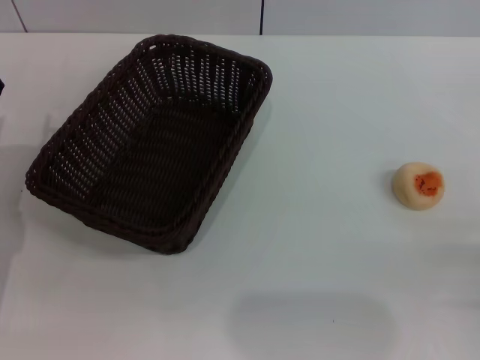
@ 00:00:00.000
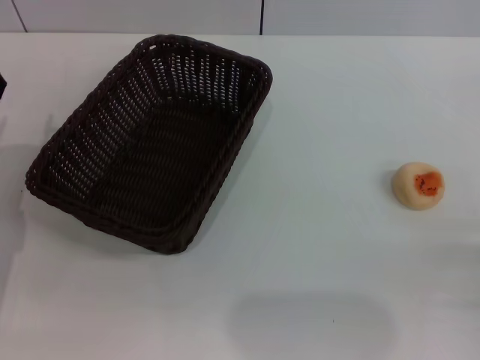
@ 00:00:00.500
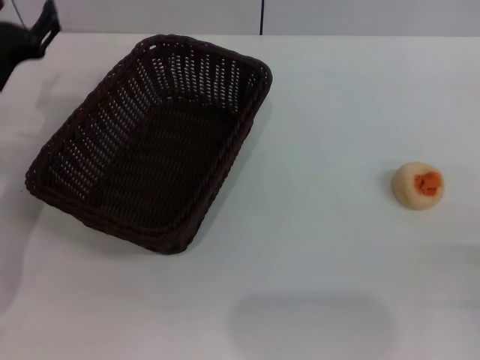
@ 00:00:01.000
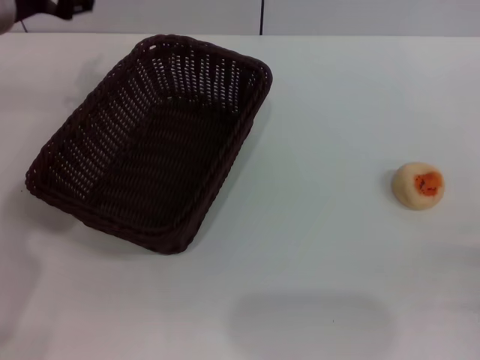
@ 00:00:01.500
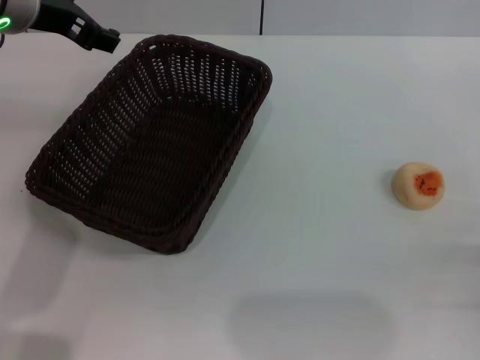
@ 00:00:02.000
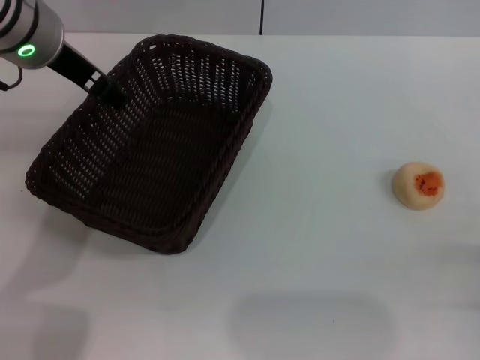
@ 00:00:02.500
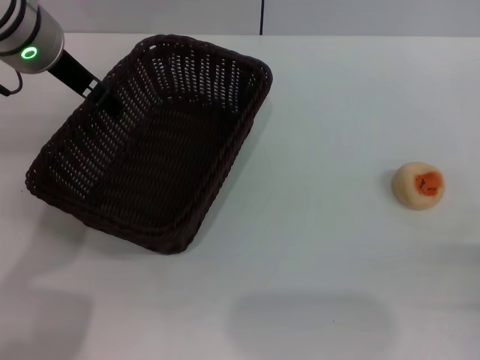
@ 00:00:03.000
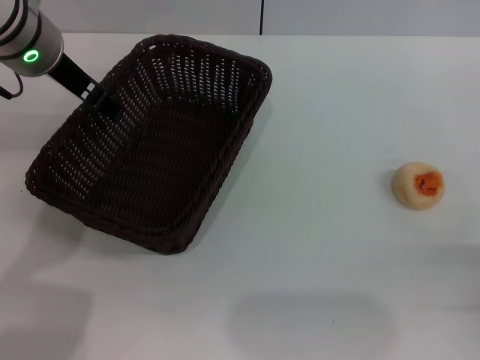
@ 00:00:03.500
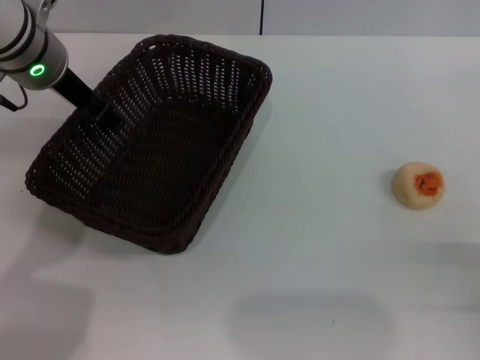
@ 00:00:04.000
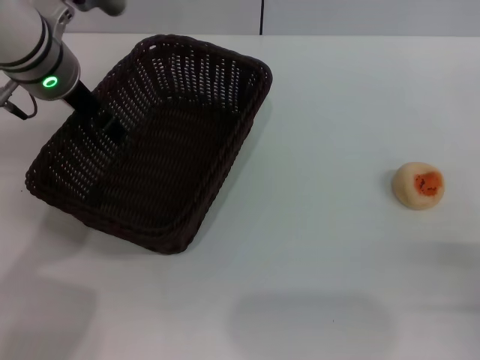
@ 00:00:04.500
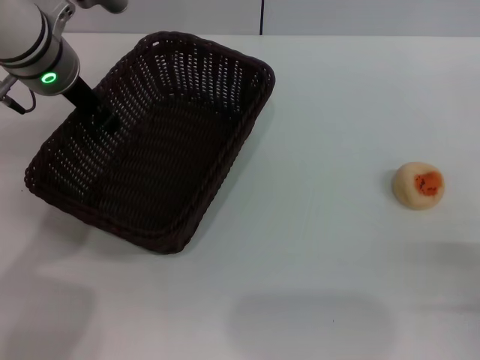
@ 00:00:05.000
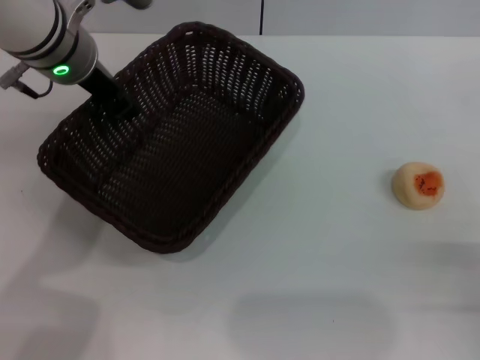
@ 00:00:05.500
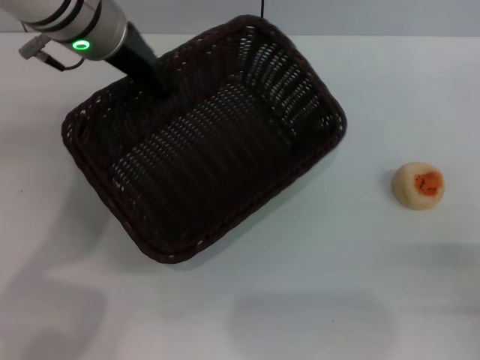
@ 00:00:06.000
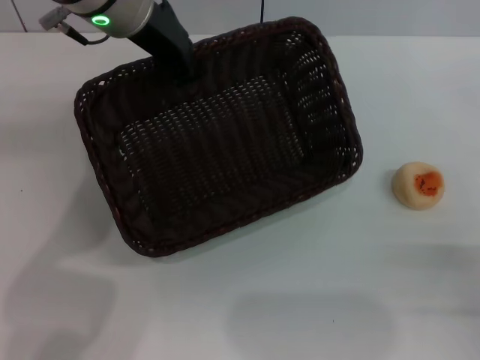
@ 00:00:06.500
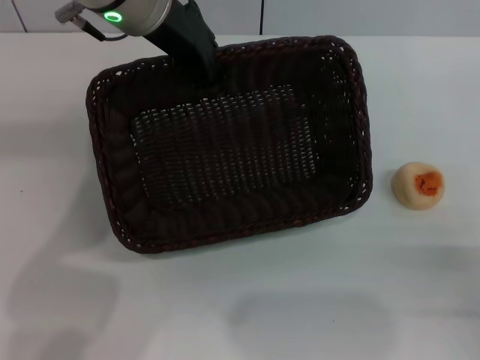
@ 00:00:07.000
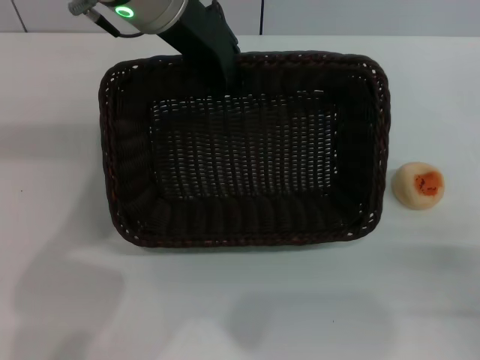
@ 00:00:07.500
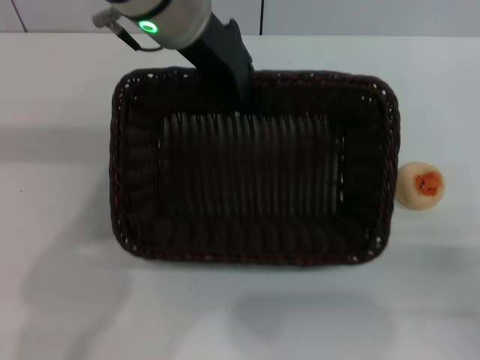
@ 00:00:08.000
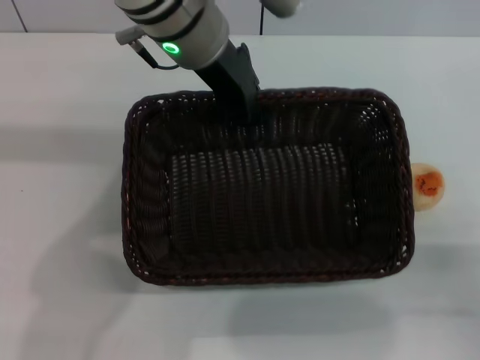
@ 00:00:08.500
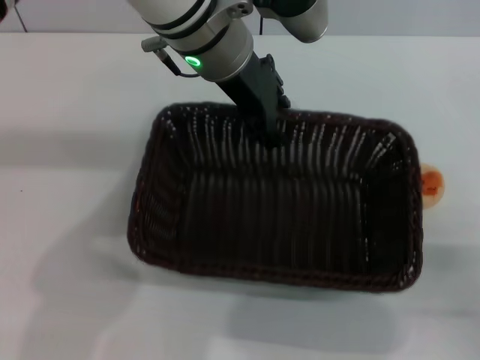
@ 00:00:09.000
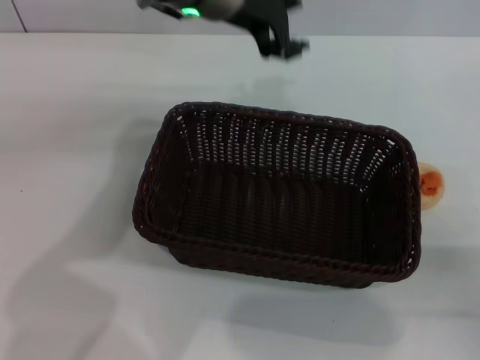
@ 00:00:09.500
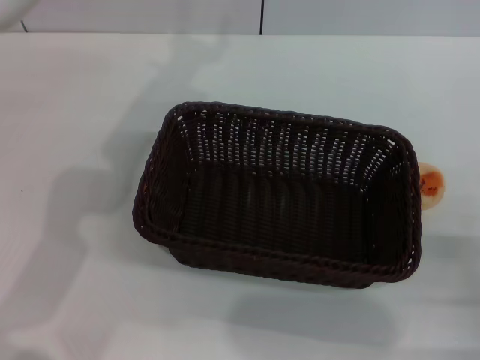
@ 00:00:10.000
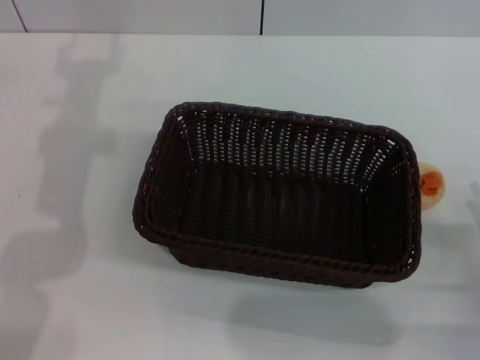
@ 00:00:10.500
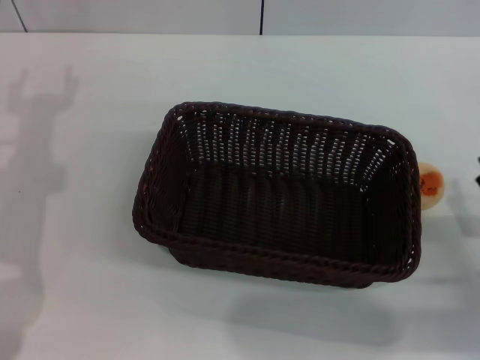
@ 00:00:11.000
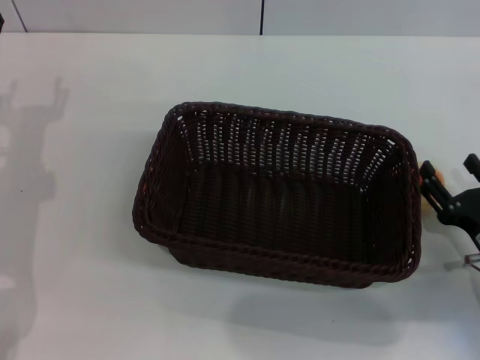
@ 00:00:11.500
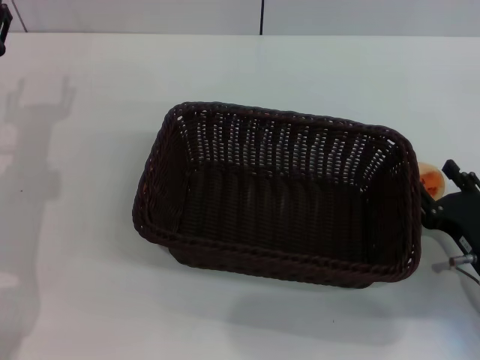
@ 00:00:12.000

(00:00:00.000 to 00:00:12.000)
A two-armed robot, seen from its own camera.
Step, 00:00:00.000 - 00:00:09.000: Move the basket to the center of view with the left gripper.
00:00:00.000 - 00:00:02.000: The left gripper is displaced upward, forward and to the right by some 25 cm.
00:00:02.000 - 00:00:04.000: The left gripper shifts roughly 5 cm downward.
00:00:04.000 - 00:00:06.000: The left gripper travels to the right by approximately 5 cm, and closes.
00:00:06.000 - 00:00:08.000: The left gripper moves to the right, about 5 cm.
00:00:08.000 - 00:00:10.000: The left gripper is displaced to the left by about 5 cm, and opens up.
00:00:10.000 - 00:00:12.000: The right gripper goes about 5 cm forward.

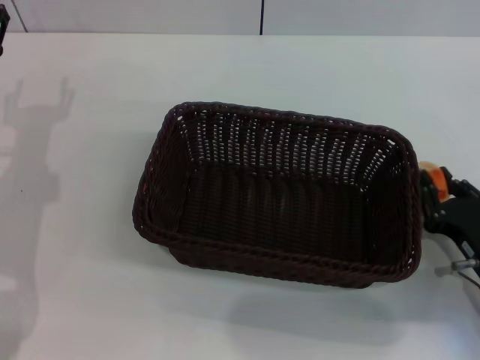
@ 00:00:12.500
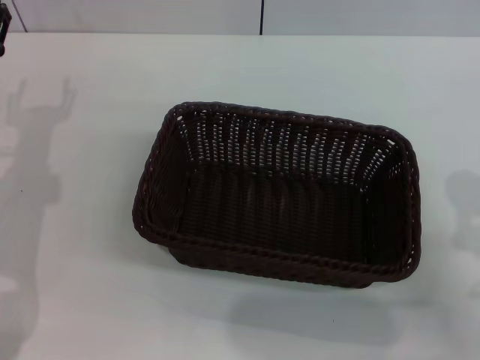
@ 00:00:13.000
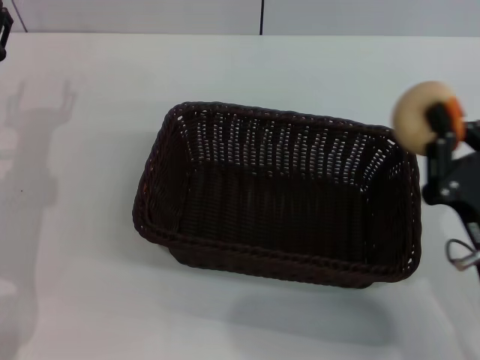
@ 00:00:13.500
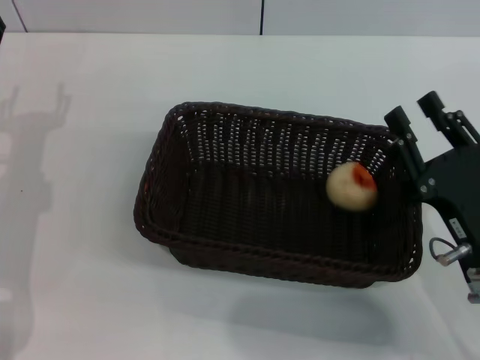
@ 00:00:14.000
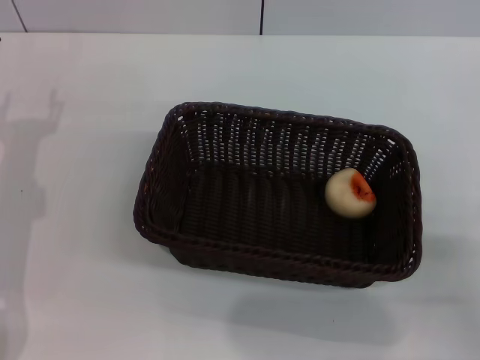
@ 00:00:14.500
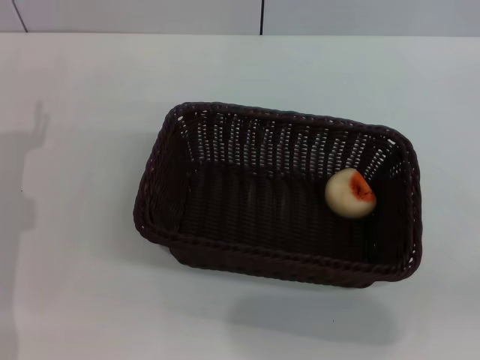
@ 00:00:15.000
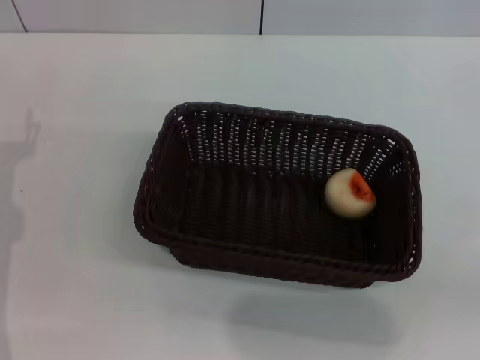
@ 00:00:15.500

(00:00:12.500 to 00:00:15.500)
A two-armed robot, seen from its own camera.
Step, 00:00:13.000 - 00:00:14.000: Place the egg yolk pastry into the basket with the right gripper.
00:00:12.500 - 00:00:14.000: The right gripper goes roughly 5 cm upward.
00:00:14.000 - 00:00:15.500: The right gripper moves to the right and backward, about 15 cm, and opens.

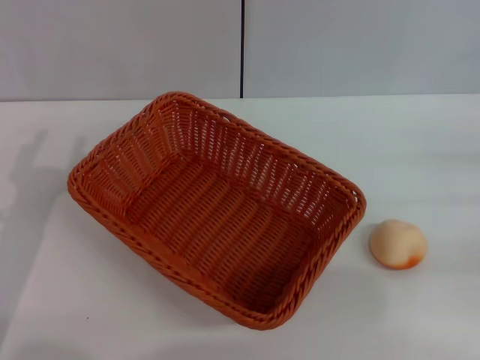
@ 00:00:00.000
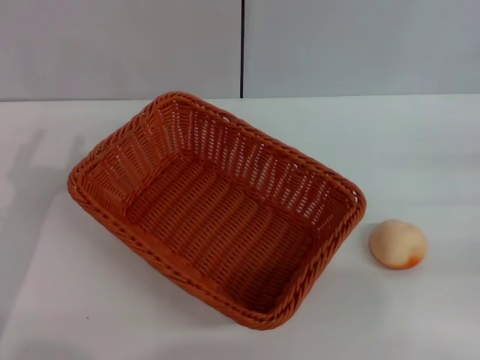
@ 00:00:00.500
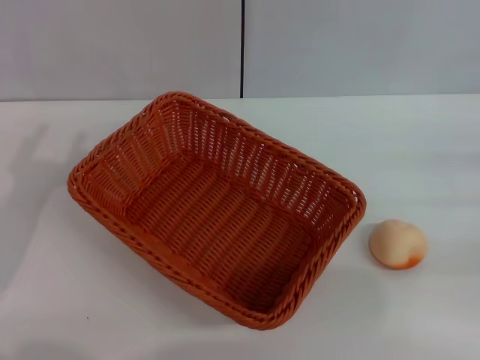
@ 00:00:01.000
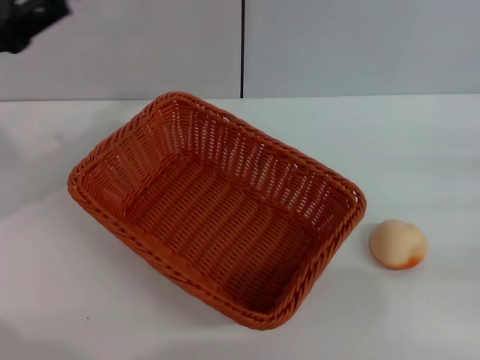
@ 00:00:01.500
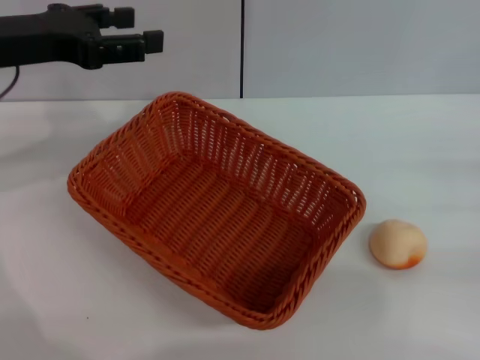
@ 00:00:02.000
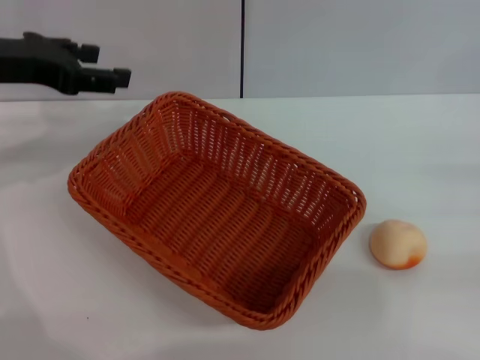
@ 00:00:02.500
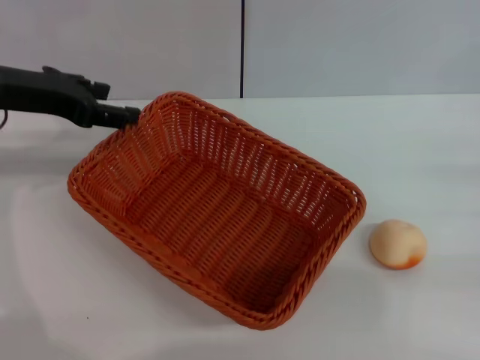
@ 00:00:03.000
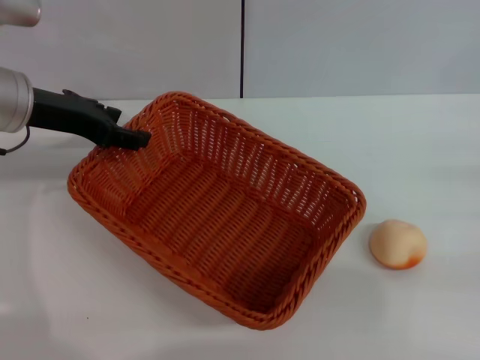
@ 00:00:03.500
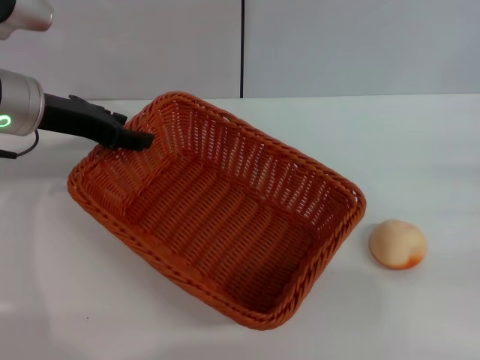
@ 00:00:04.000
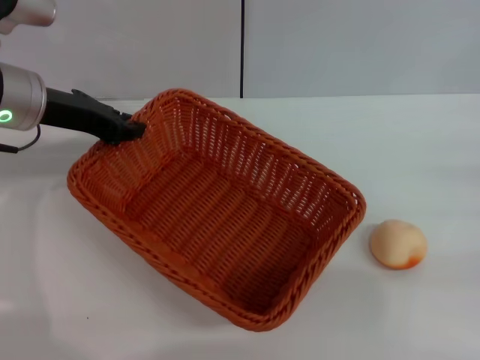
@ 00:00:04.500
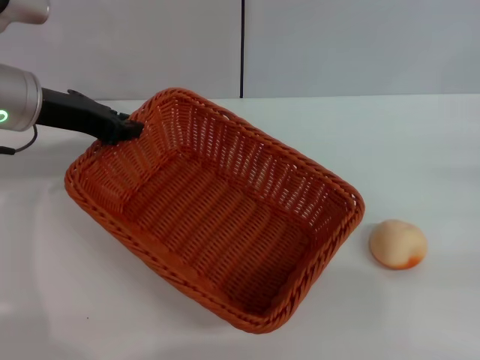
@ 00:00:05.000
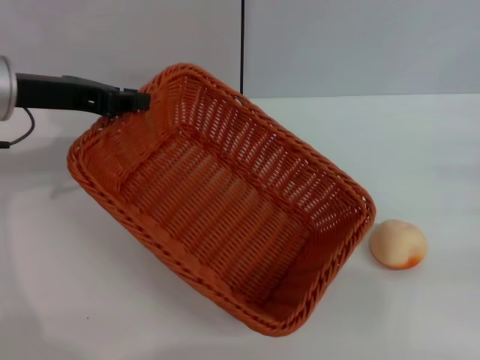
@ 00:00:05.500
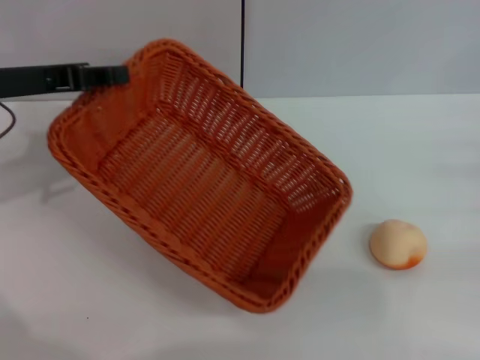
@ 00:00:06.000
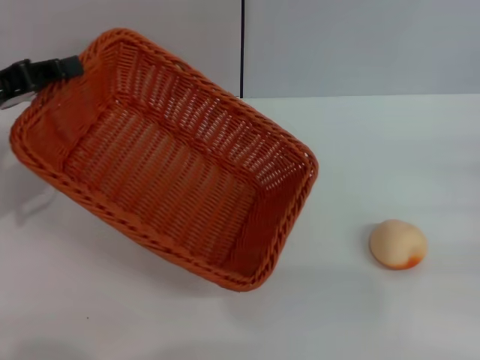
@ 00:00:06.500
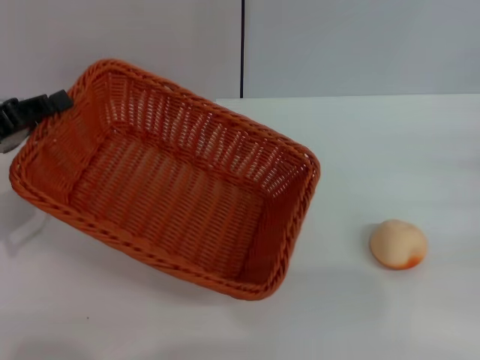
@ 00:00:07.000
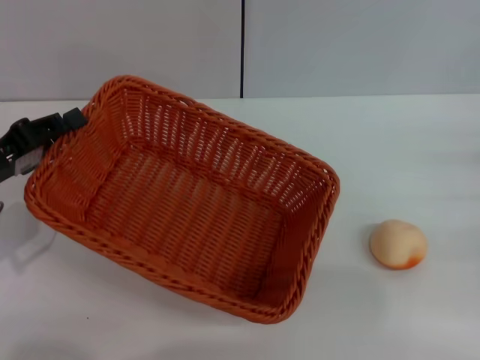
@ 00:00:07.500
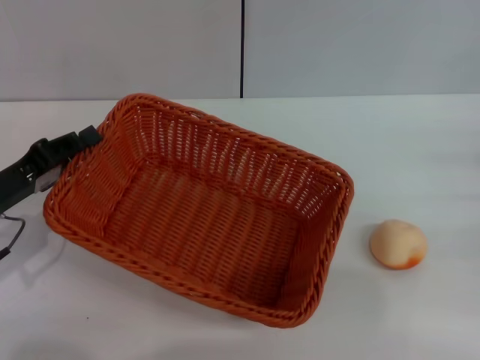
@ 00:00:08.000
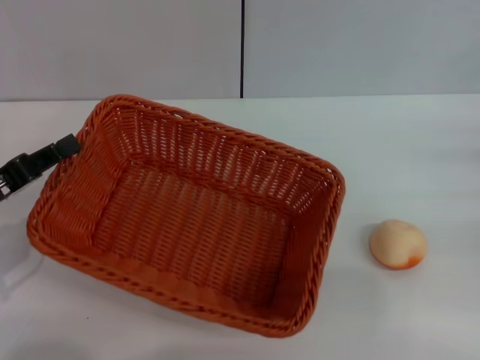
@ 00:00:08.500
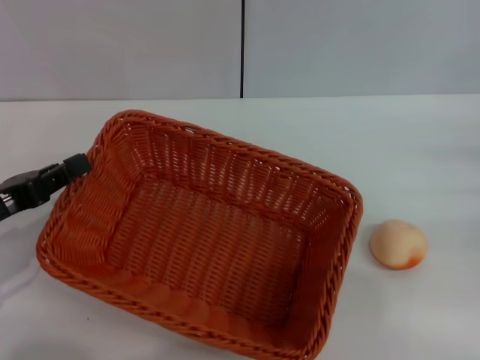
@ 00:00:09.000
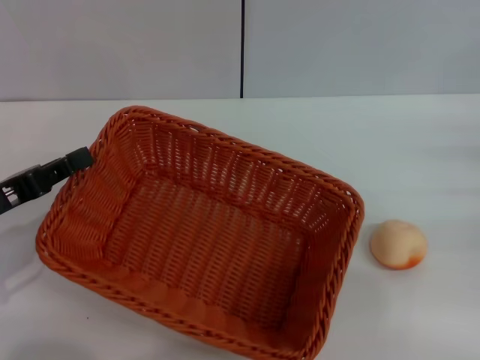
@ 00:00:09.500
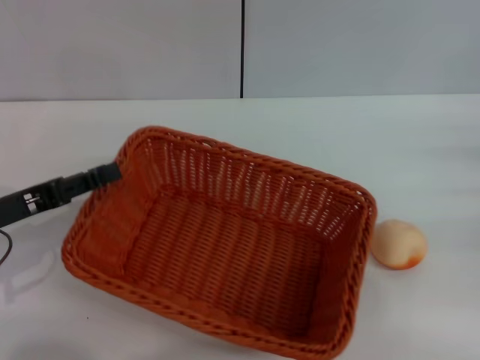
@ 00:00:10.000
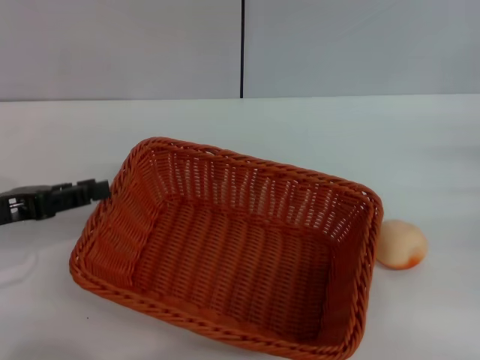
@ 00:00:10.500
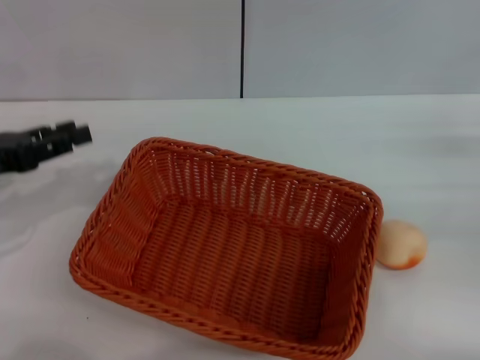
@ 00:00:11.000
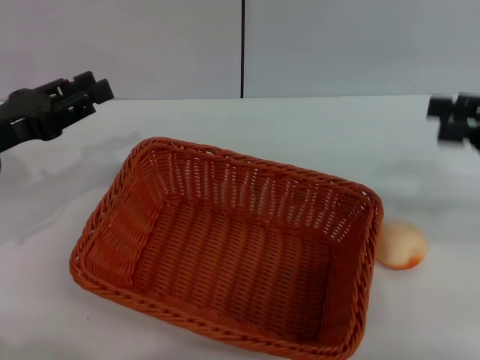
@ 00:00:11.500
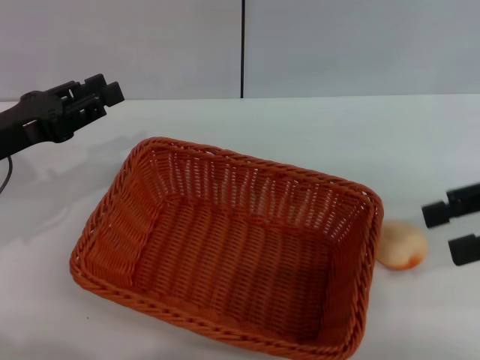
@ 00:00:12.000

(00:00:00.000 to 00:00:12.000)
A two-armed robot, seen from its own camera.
Step, 00:00:00.000 - 00:00:11.500: Move the basket to the center of view with the left gripper.
00:00:00.000 - 00:00:02.000: The left gripper shifts some 20 cm upward and forward.
00:00:02.000 - 00:00:04.000: The left gripper shifts some 5 cm downward.
00:00:04.000 - 00:00:06.000: The left gripper shifts by about 5 cm, and closes up.
00:00:06.000 - 00:00:08.000: The left gripper shifts approximately 15 cm downward and backward.
00:00:10.000 - 00:00:12.000: The right gripper heads upward and to the left, covering approximately 15 cm. The left gripper ends up roughly 5 cm from where it was.
